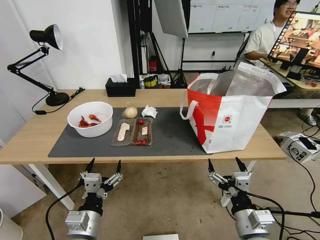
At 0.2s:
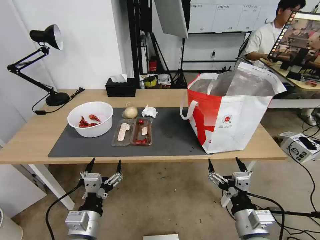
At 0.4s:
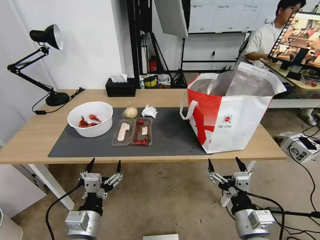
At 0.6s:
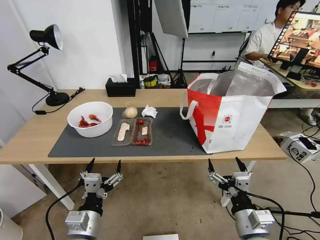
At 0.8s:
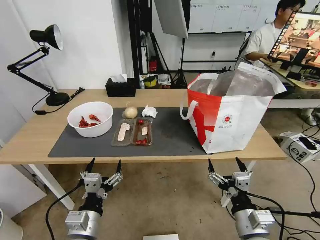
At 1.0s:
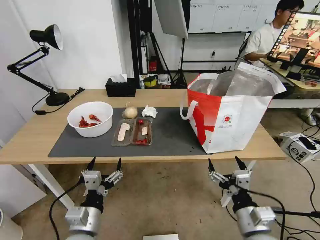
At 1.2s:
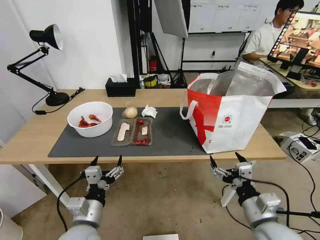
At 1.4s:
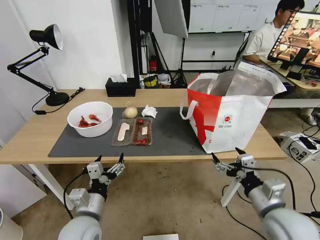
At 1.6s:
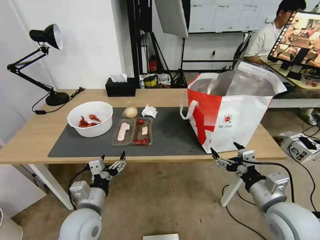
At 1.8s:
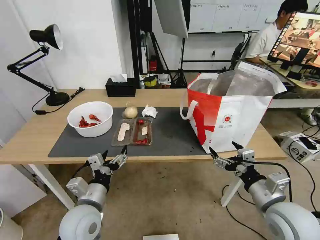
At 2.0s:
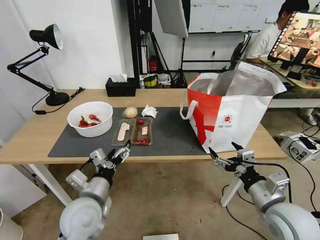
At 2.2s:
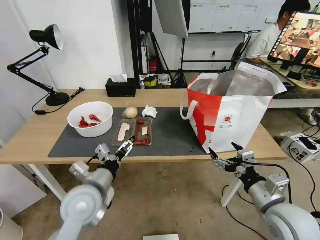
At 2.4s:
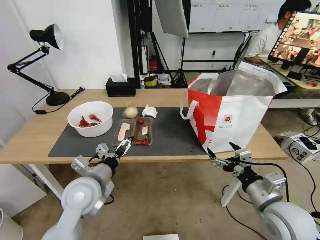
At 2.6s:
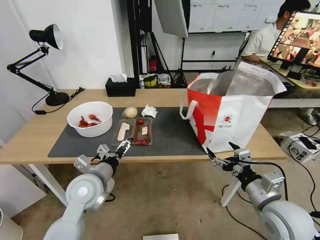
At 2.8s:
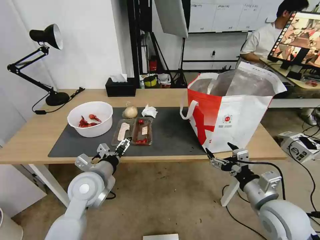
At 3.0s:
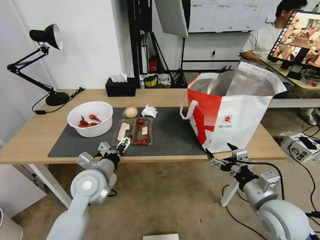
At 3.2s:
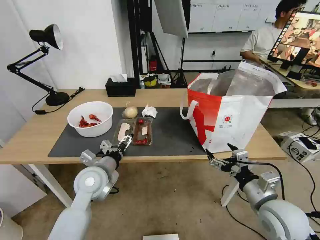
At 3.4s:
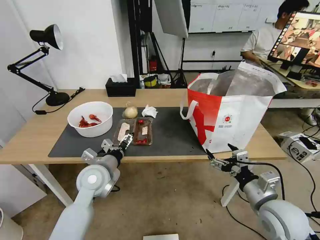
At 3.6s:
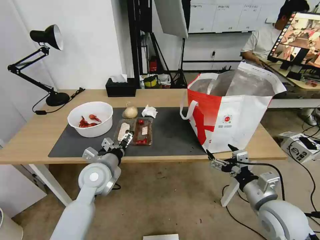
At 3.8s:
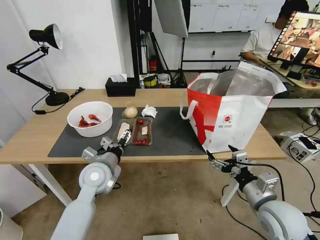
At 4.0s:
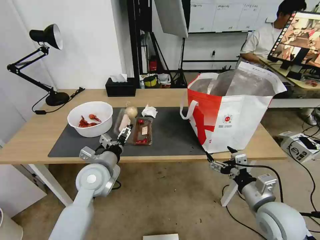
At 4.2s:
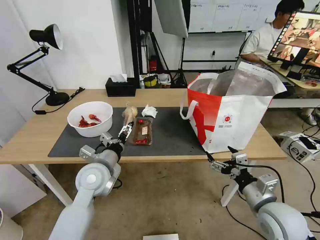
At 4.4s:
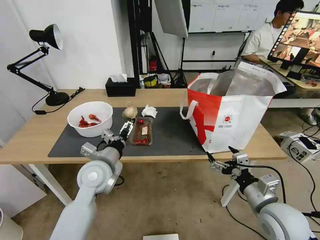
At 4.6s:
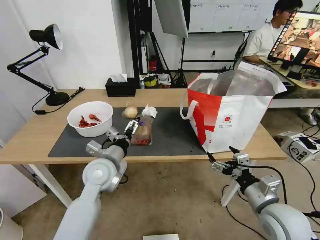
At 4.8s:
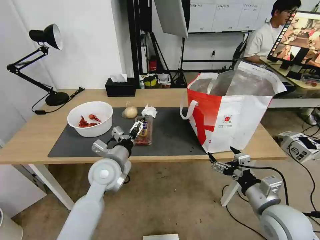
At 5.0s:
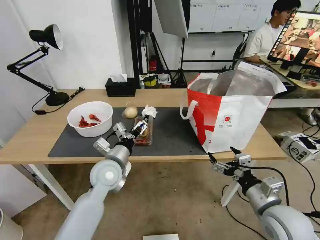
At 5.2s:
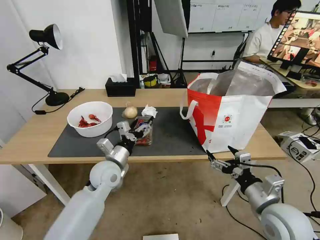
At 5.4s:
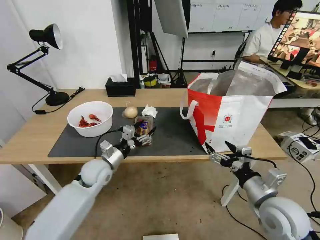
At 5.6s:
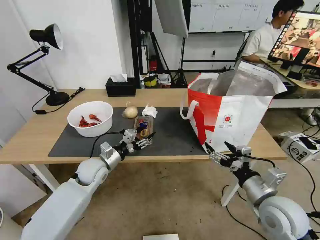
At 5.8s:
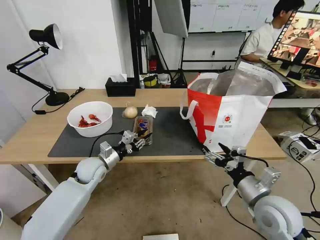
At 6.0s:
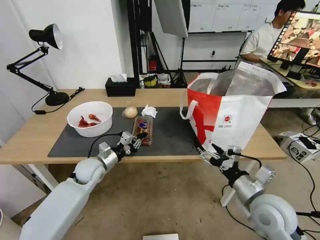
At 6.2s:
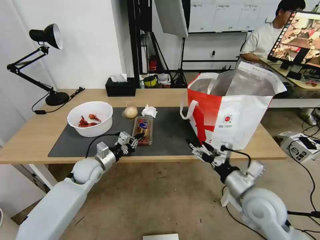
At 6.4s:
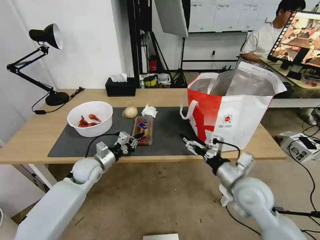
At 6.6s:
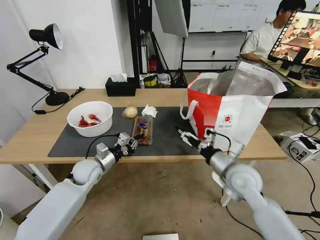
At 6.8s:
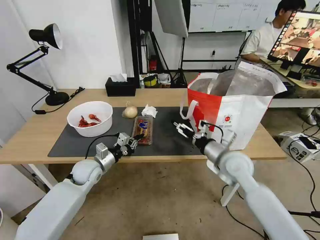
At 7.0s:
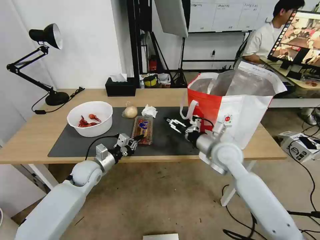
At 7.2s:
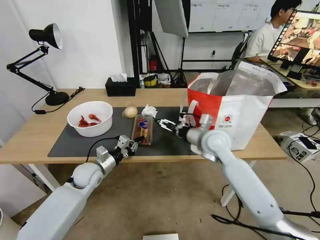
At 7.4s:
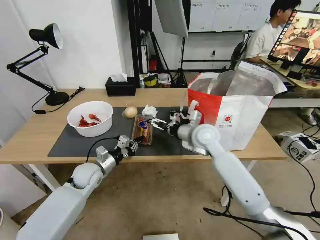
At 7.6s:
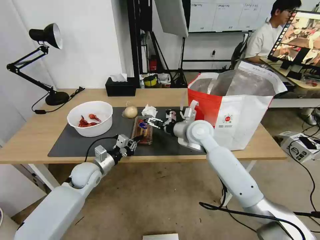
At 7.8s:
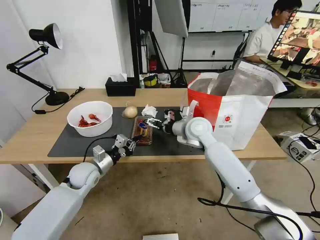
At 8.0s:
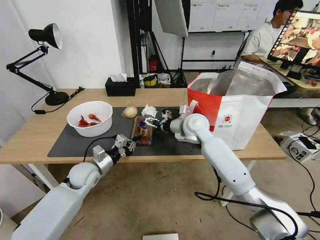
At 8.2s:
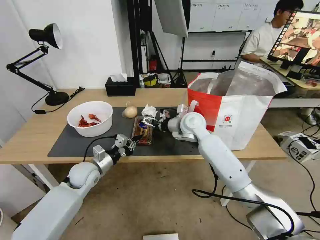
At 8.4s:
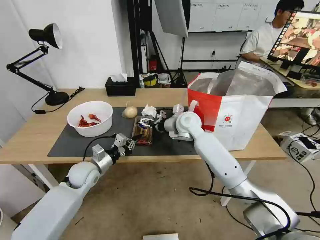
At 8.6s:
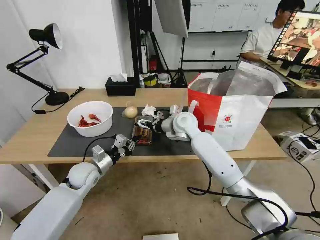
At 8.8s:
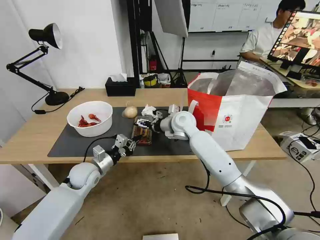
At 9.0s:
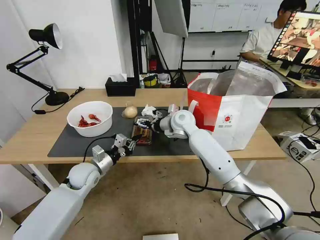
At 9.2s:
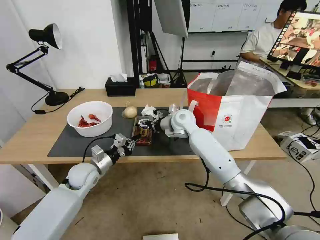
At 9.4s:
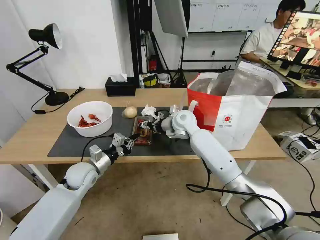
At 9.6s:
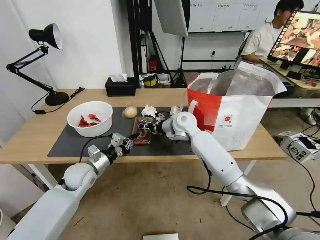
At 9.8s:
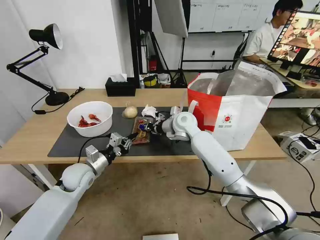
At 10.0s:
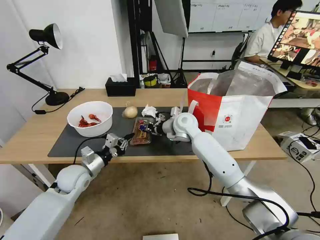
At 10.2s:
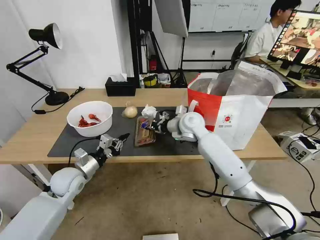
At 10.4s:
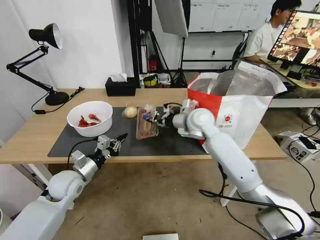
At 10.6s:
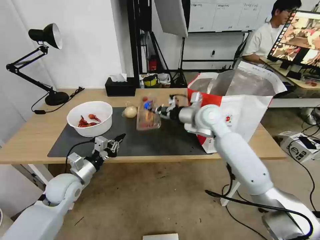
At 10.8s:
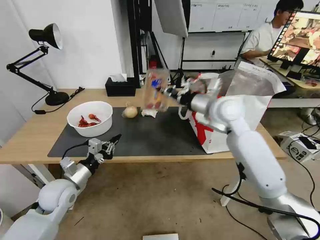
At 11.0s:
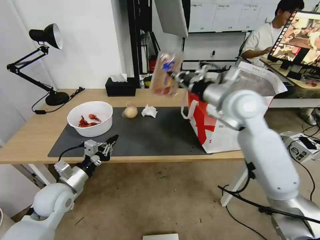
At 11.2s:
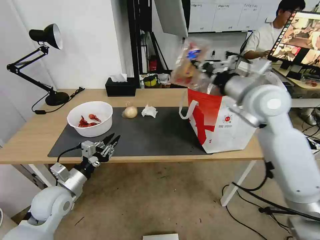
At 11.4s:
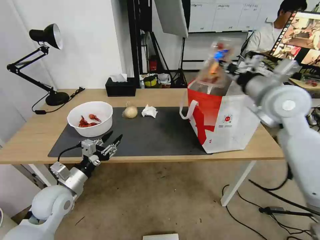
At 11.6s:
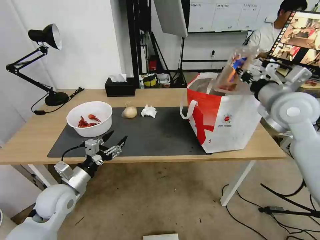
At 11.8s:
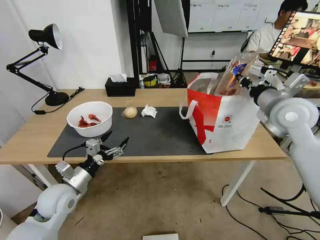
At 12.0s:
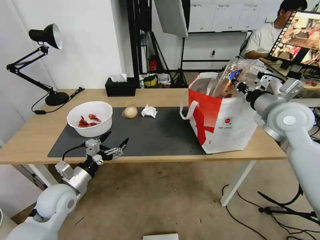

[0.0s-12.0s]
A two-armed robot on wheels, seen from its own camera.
Task of the whole recording: Pick up the trash from the table and place it into the takeout bag.
1.6s to 3.0s: The left gripper shifts approximately 10 cm forward.
3.0s to 4.4s: There are only small adjustments of the grippers.
4.4s to 6.0s: The left gripper travels downward, forward and to the left by some 15 cm, and closes up.
6.0s to 7.6s: The right gripper is displaced forward and to the left by roughly 25 cm.
7.6s to 9.0s: The right gripper shifts some 10 cm forward and to the left.
9.0s to 10.4s: The left gripper ends up approximately 5 cm from where it was, while the right gripper moves some 5 cm, and closes.
10.4s to 12.0s: The right gripper is displaced to the right, upward and backward by about 25 cm. The left gripper travels backward by some 5 cm, and opens.

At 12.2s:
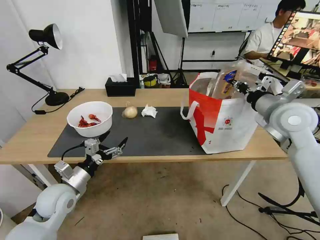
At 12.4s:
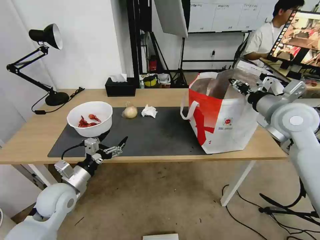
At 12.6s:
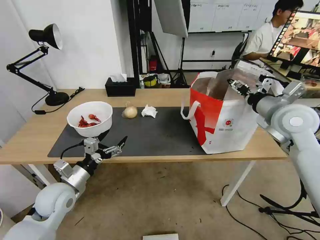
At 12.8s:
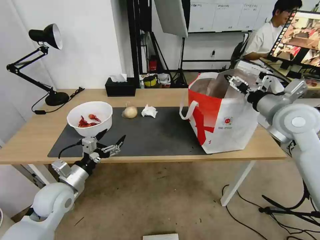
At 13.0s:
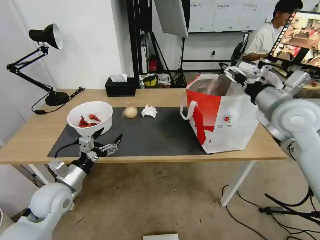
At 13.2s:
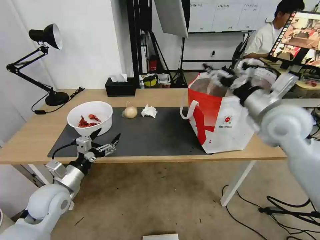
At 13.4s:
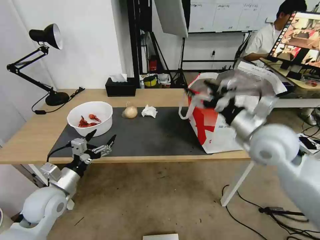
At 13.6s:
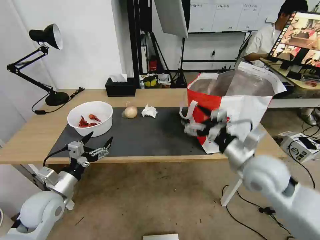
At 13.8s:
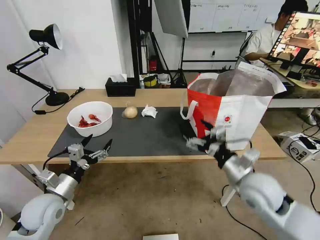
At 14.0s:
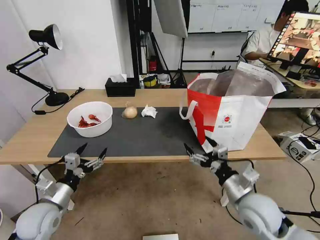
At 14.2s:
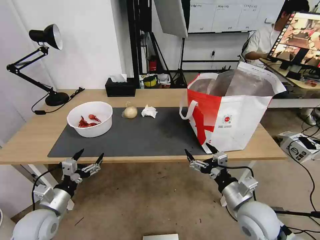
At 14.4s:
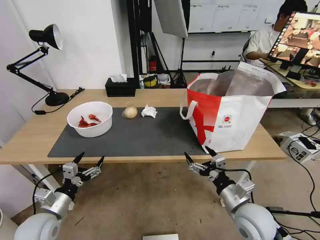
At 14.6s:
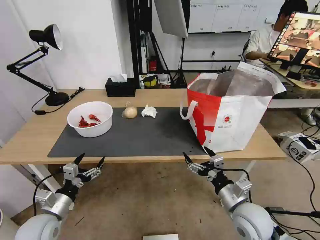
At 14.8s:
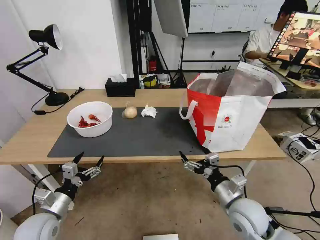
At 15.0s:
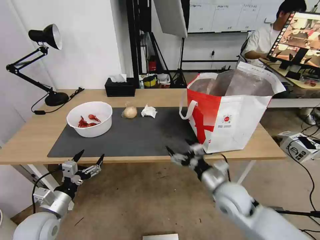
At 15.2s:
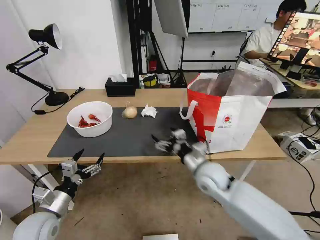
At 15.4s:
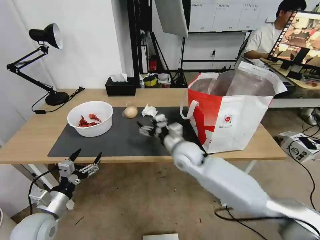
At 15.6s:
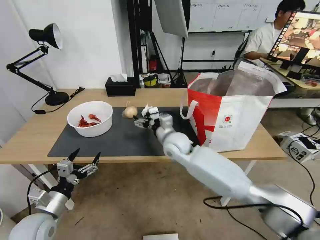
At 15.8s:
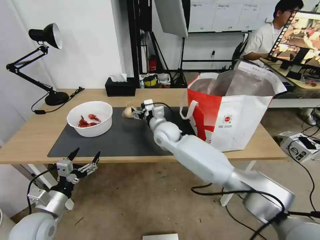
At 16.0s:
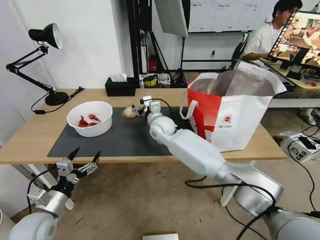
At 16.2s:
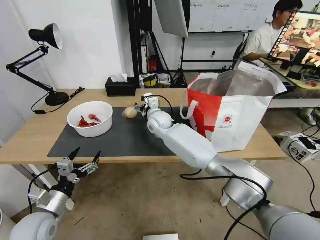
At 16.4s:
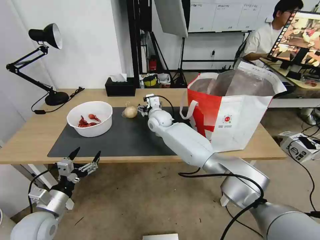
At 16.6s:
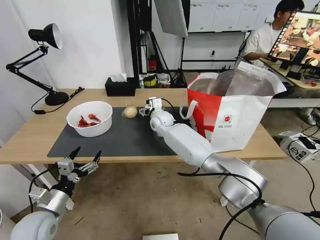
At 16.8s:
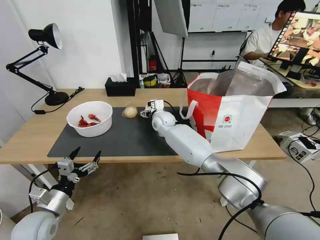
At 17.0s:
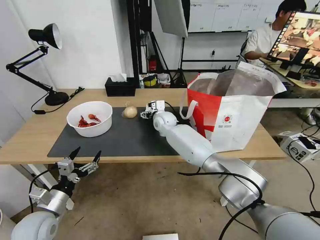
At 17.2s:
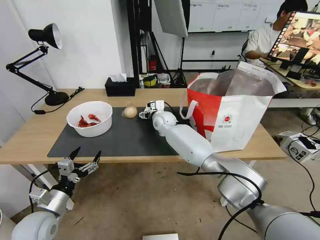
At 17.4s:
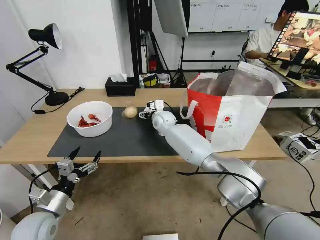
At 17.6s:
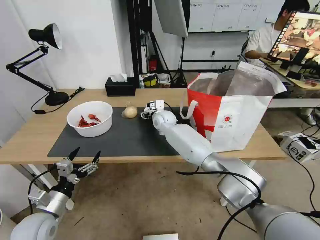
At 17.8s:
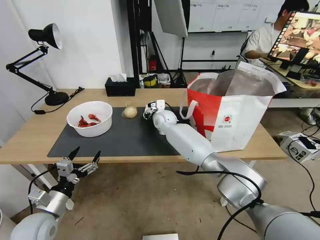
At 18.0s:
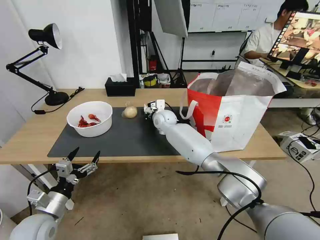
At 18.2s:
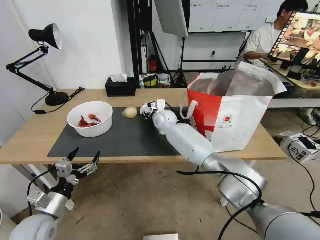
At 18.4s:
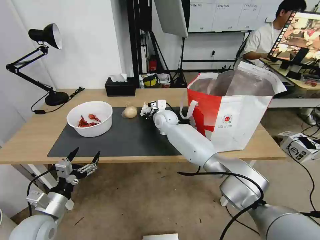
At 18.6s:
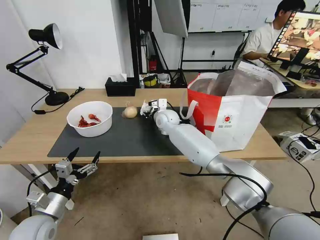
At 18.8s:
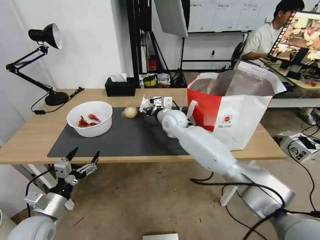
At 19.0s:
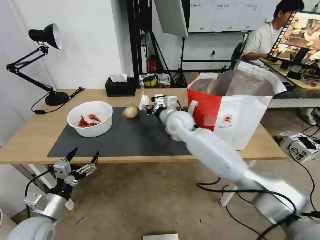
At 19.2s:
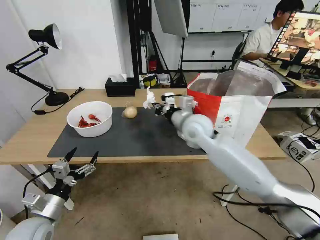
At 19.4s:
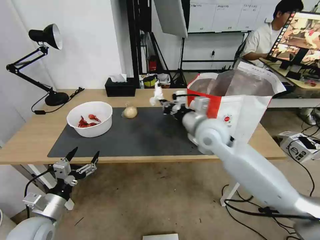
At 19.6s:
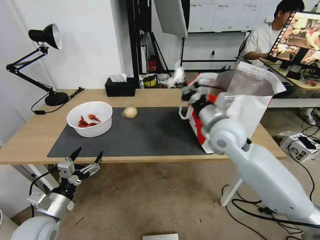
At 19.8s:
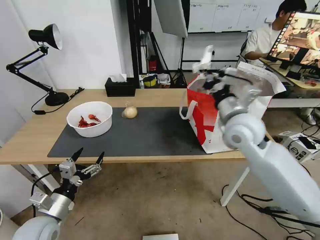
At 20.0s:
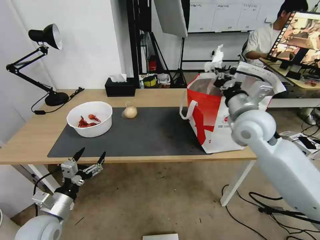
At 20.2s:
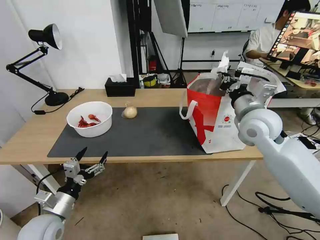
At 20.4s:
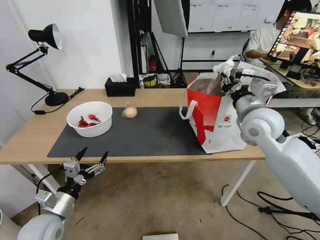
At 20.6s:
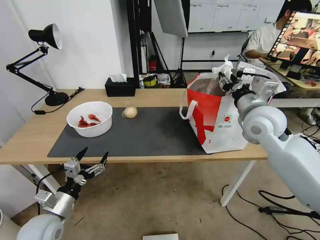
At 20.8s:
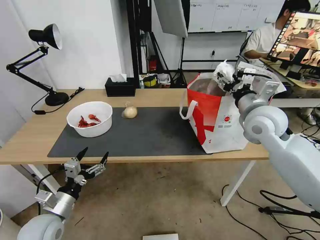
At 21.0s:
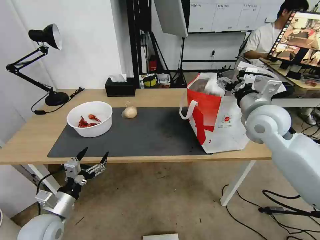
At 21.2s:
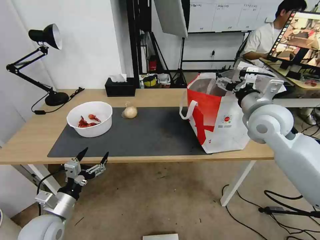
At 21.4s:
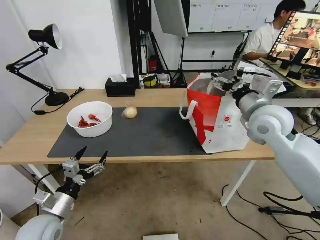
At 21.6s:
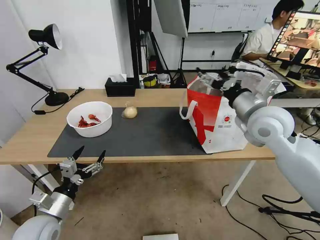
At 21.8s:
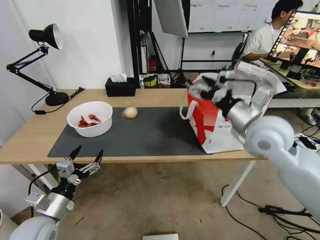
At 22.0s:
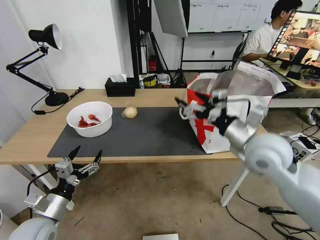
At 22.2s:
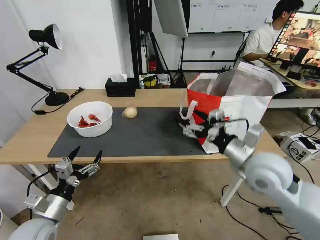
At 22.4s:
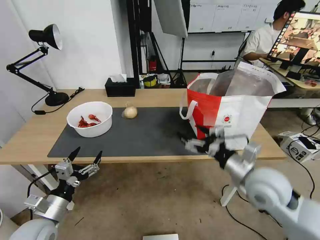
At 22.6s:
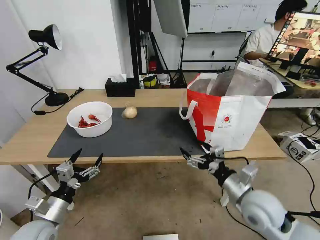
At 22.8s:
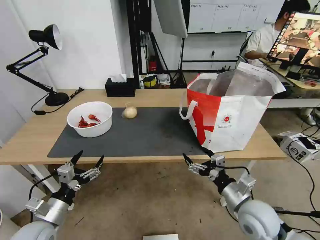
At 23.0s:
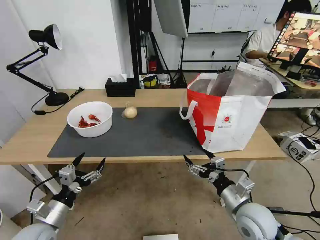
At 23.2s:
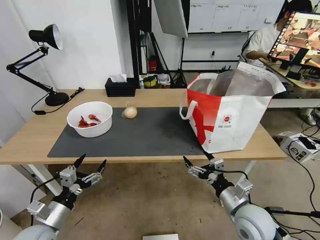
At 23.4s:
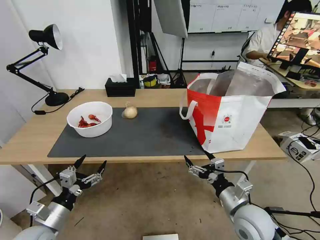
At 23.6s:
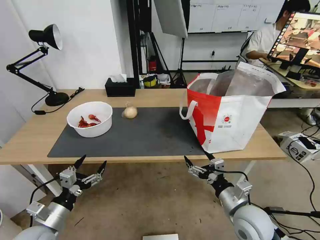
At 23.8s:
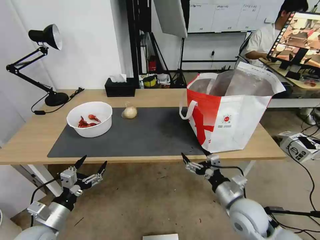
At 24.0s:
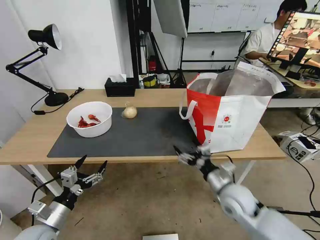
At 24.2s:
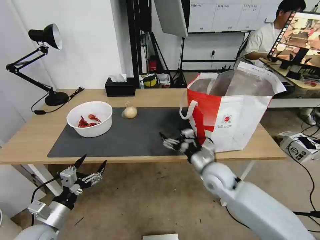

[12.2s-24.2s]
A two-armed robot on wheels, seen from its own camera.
Task of the whole recording: Pick up the trash from the table and place it into the takeout bag.
12.2s to 13.8s: The right gripper travels downward, backward and to the left by about 20 cm, and opens.
13.8s to 15.2s: The left gripper moves some 5 cm; the right gripper moves to the left, forward and downward, approximately 15 cm.
15.2s to 16.6s: The right gripper goes about 30 cm forward and to the left.
16.6s to 18.2s: The right gripper closes.
18.2s to 19.8s: The right gripper heads backward, to the right and upward, covering roughly 30 cm.
19.8s to 21.2s: The right gripper is displaced to the right by roughly 5 cm, and opens up.
21.2s to 22.6s: The right gripper is displaced downward and backward by about 25 cm.
22.6s to 24.2s: The right gripper shifts approximately 10 cm forward and to the left.
